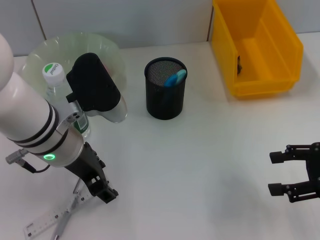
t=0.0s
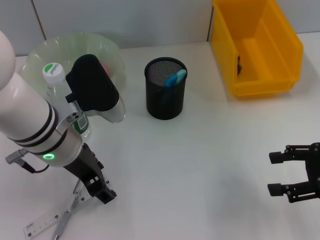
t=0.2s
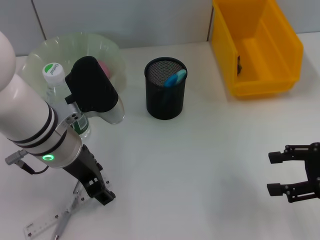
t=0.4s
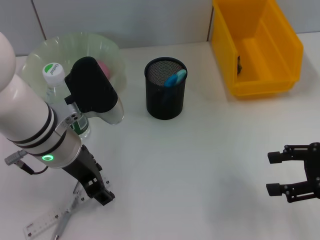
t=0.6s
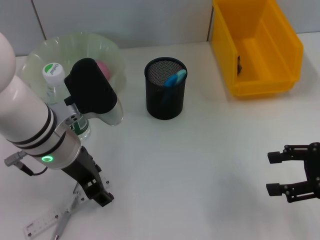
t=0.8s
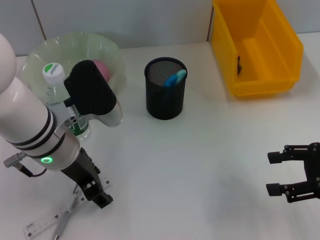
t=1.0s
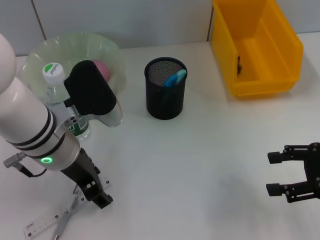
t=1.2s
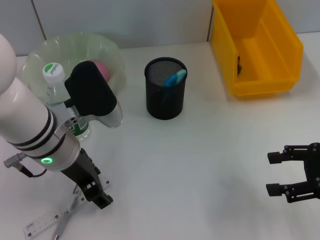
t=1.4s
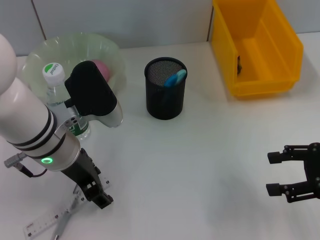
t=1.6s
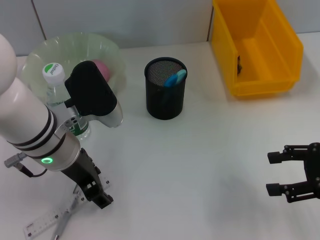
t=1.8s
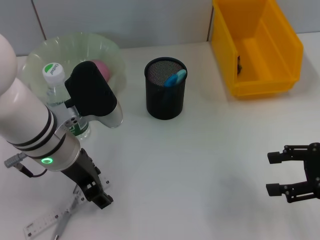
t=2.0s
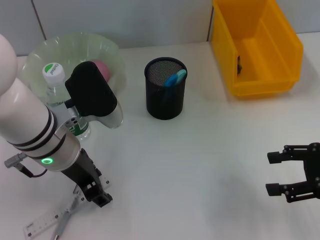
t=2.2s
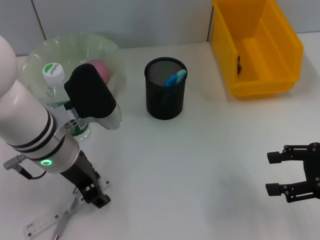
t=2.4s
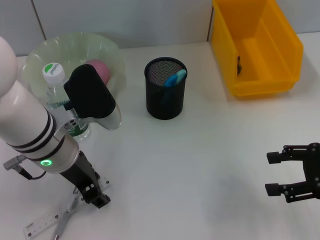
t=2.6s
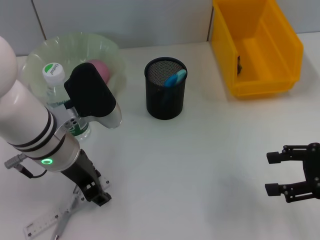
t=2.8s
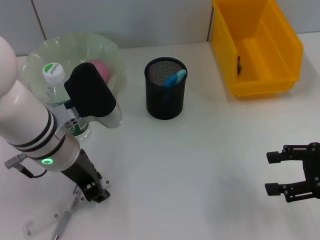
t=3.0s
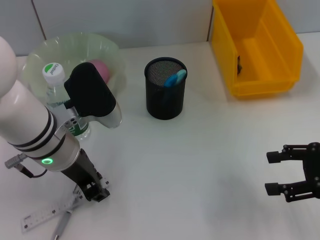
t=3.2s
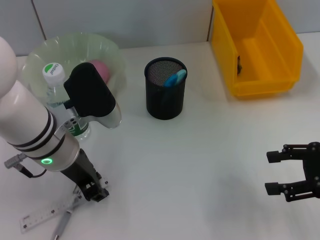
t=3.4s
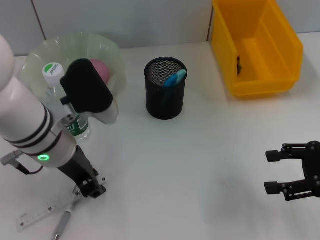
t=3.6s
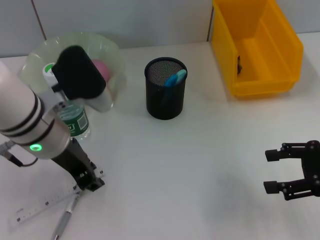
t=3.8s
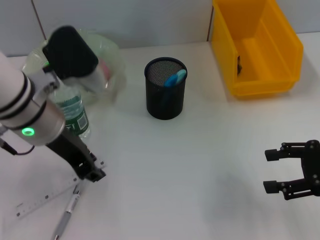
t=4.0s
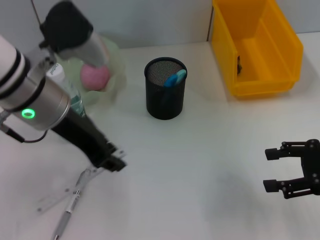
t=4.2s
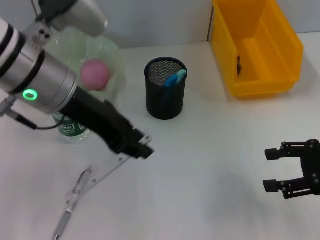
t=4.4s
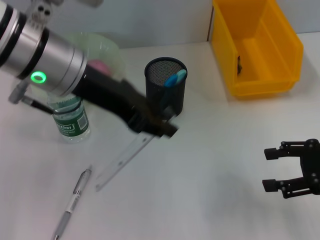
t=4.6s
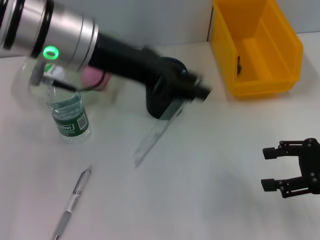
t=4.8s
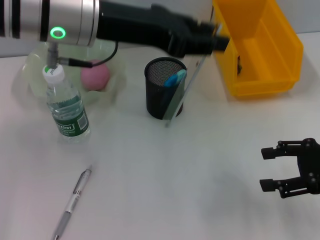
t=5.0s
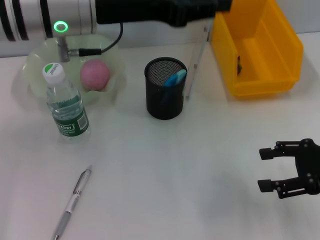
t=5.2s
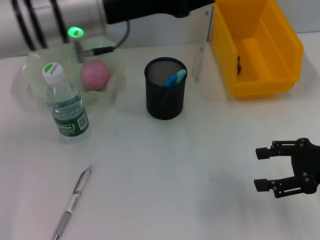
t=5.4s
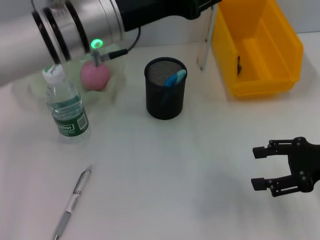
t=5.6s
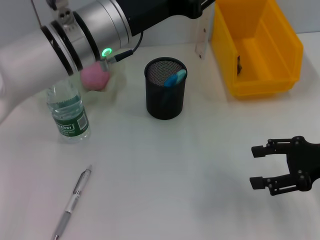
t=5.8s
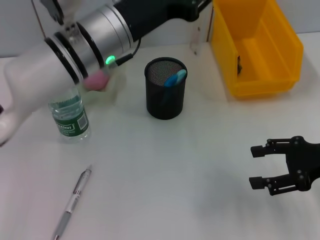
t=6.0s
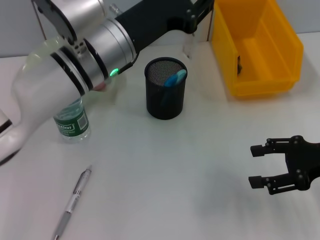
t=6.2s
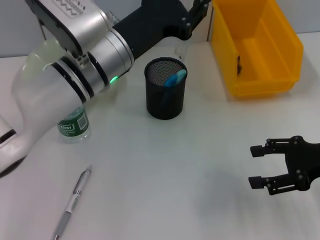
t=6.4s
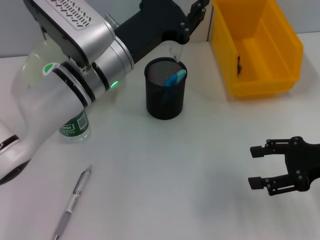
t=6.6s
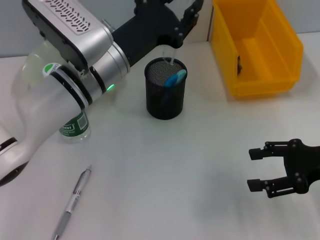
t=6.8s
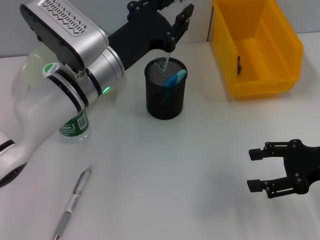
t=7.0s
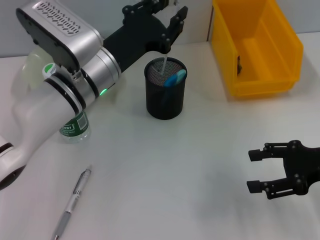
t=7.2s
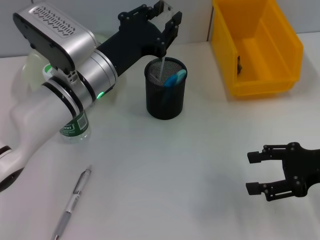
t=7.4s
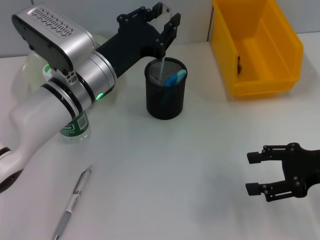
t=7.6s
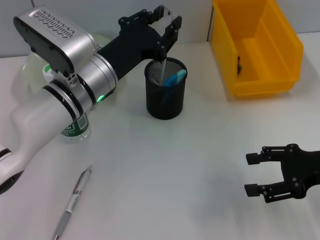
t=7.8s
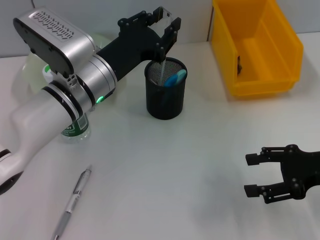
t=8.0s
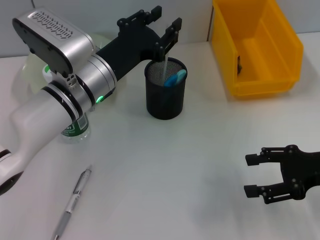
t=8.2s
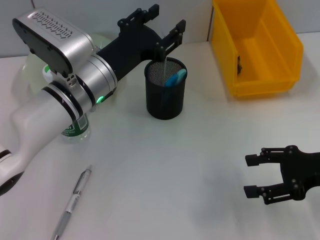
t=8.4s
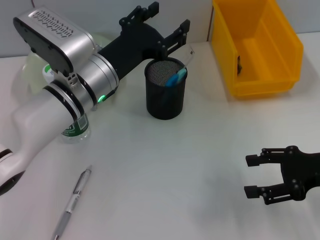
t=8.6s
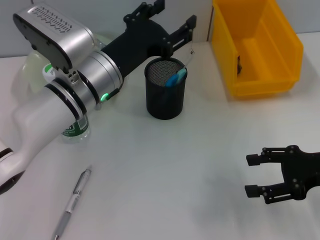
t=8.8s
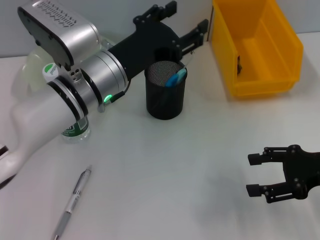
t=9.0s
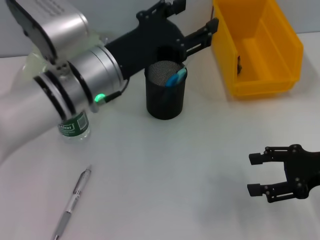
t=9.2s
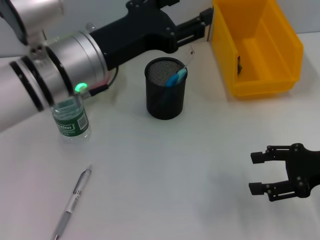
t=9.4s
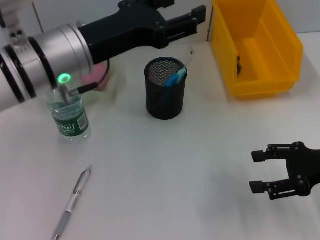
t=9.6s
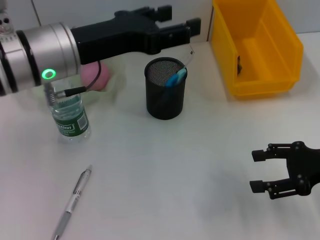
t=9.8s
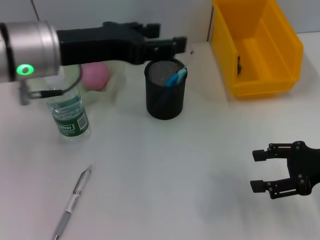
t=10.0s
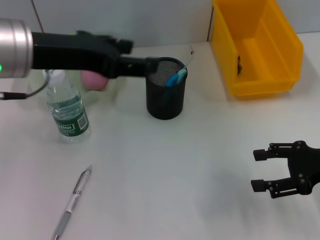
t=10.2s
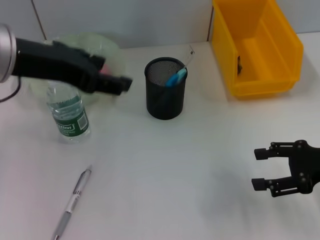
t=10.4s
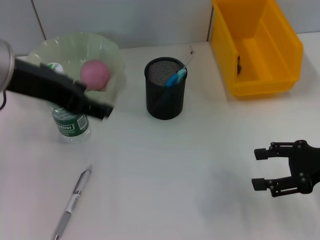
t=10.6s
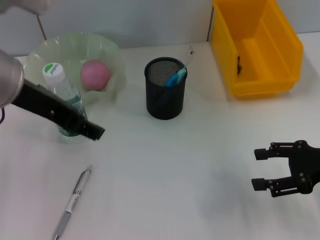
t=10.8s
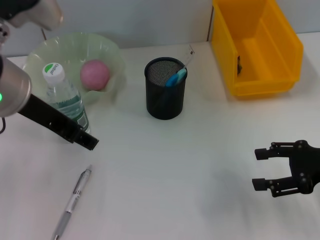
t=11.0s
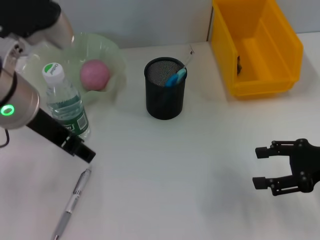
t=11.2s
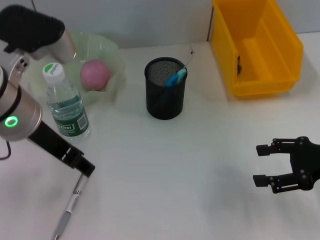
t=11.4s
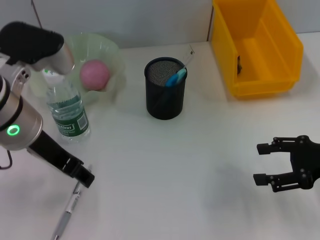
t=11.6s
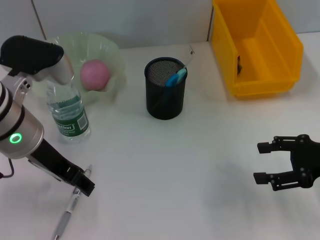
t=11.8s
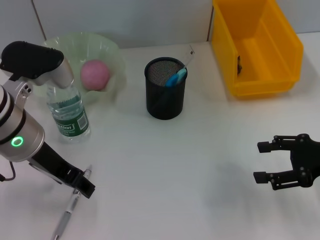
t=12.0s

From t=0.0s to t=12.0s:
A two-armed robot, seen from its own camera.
Step, from t=0.0s to t=3.4s: Grab the ruler with the left hand.
Step, from t=3.6s to t=8.6s: Place the ruler into the pen holder with the left hand.
From t=0.0s to t=1.6s: Both grippers stay put.
From t=1.6s to t=3.0s: Neither gripper changes place.
From t=3.0s to t=4.4s: The left gripper shifts about 10 cm upward.
From t=4.4s to t=6.0s: The left gripper travels to the right by roughly 5 cm.
From t=6.0s to t=7.6s: The left gripper shifts roughly 5 cm downward.
From t=7.6s to t=9.0s: The left gripper opens.
From t=9.0s to t=10.4s: The left gripper goes about 15 cm upward and to the left.
From t=10.4s to t=12.0s: The left gripper goes roughly 10 cm downward.

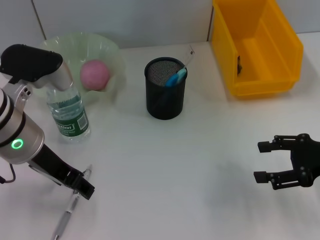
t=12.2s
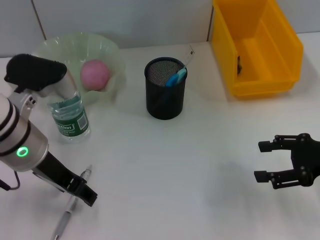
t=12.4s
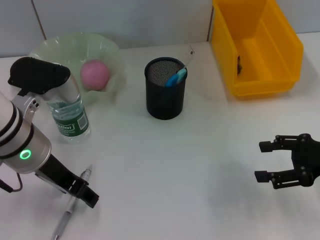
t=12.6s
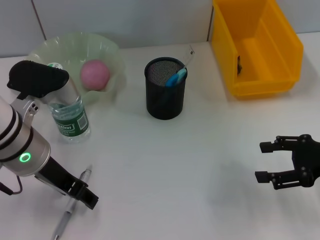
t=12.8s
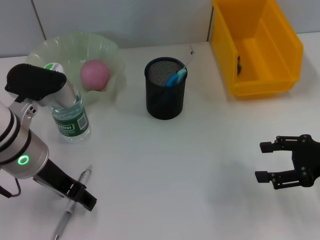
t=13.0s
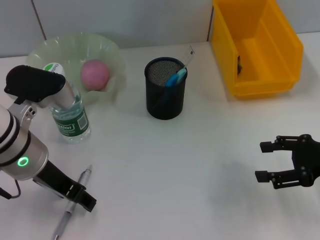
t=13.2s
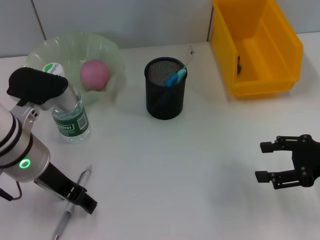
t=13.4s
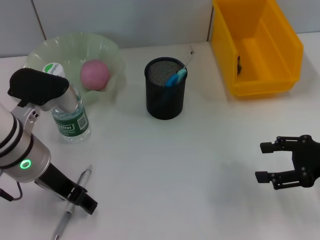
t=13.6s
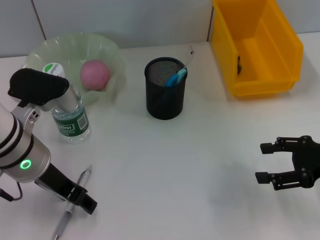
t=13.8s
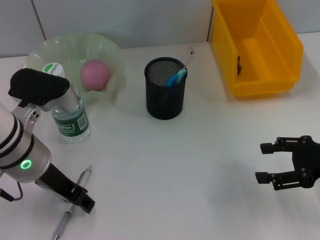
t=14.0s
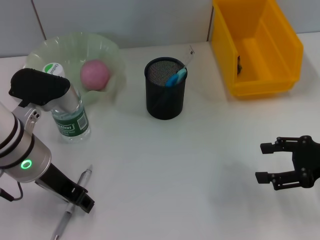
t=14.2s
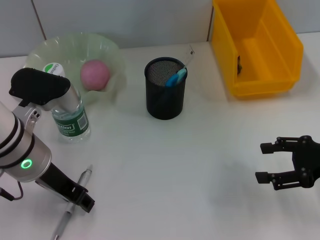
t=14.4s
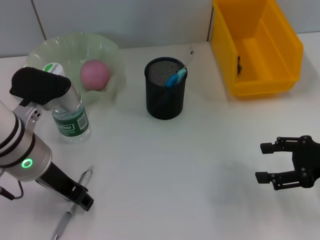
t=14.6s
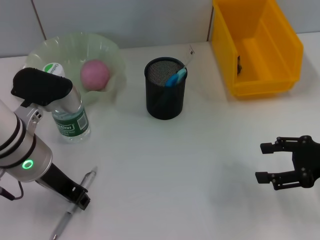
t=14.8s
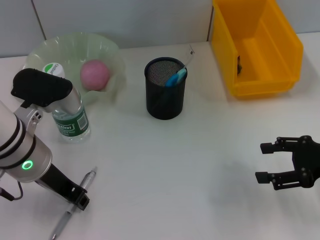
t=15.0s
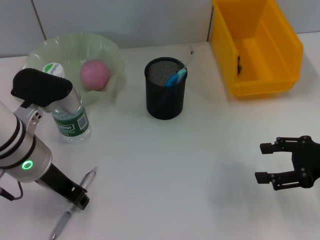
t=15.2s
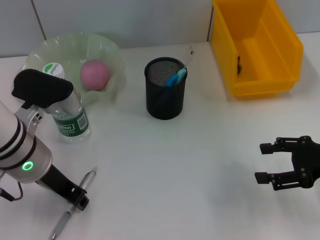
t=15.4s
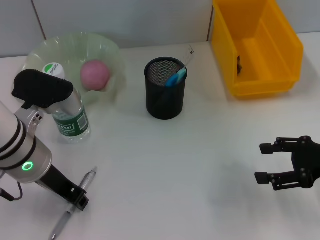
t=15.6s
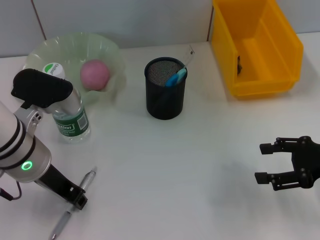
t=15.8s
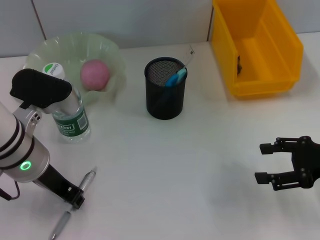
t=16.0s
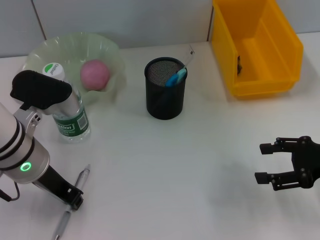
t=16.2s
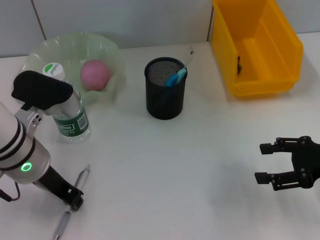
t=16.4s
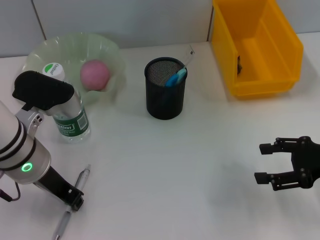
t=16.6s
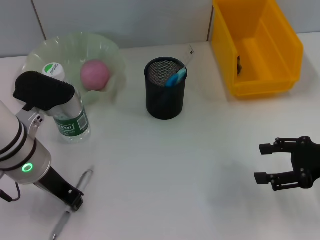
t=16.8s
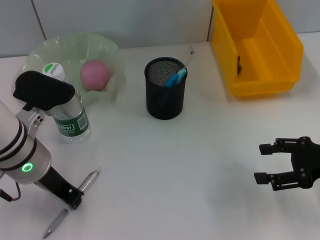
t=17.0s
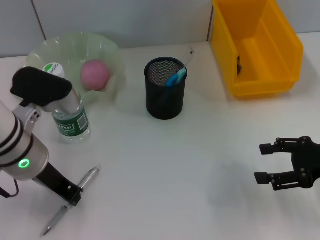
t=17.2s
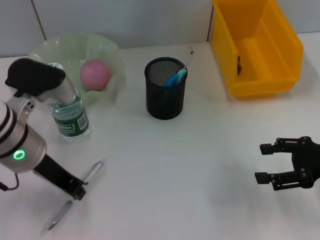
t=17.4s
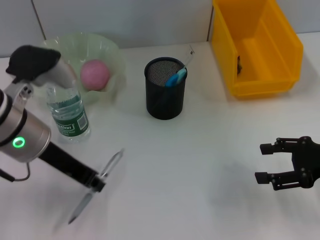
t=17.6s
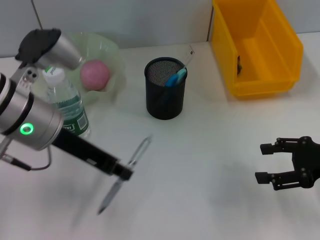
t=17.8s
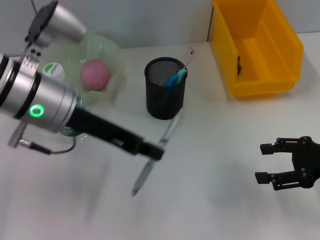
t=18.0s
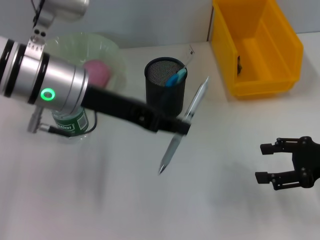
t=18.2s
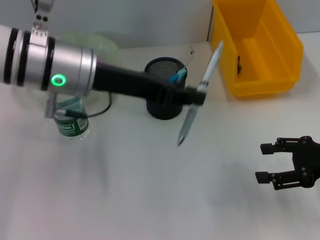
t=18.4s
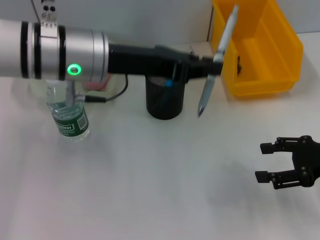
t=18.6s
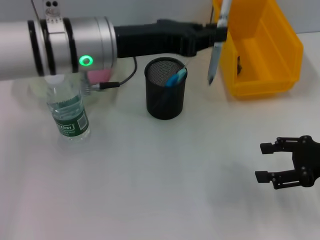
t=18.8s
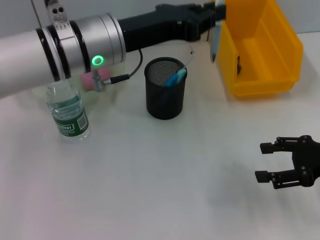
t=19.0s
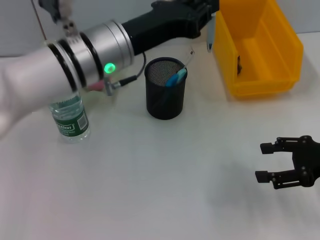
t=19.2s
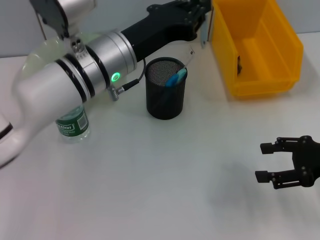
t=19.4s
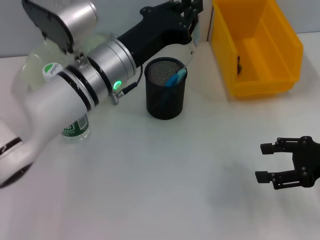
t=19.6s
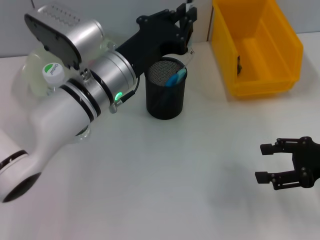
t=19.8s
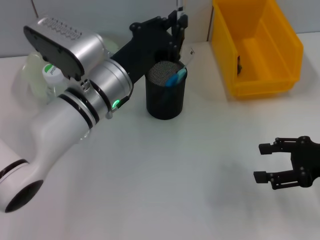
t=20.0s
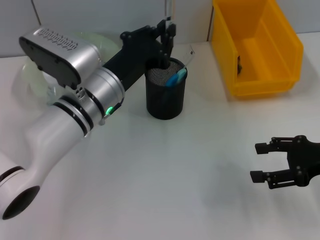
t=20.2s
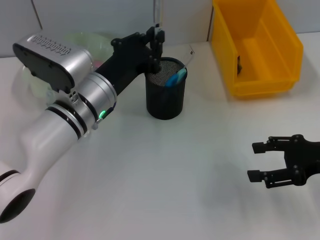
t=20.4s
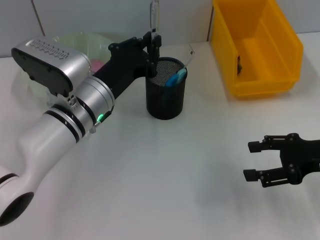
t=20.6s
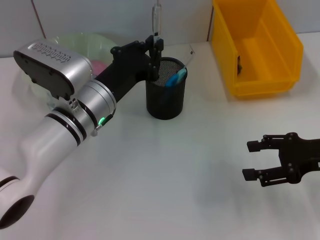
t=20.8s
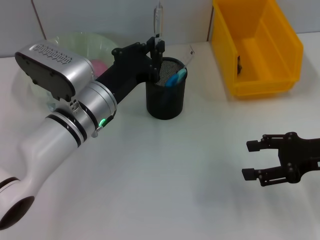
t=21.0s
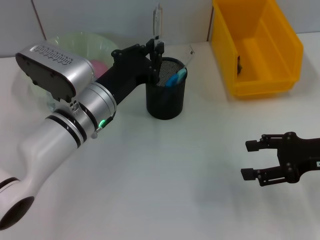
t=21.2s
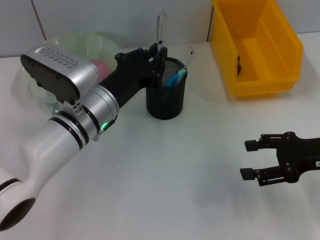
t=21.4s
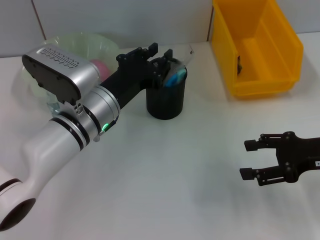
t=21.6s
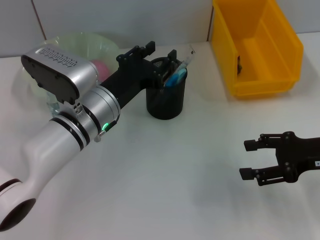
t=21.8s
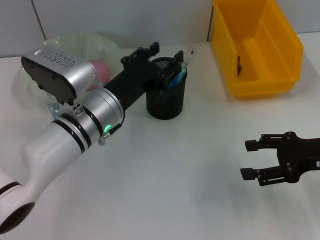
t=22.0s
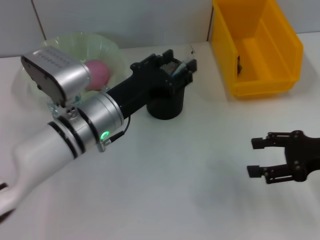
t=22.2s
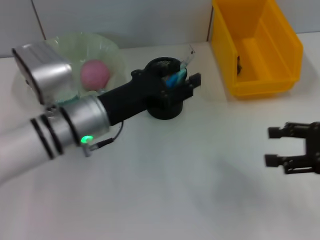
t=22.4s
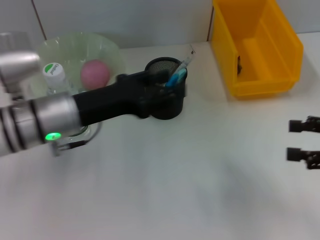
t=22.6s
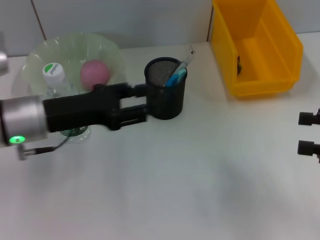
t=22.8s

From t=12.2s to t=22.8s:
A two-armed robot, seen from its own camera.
Step, from t=12.2s to t=16.8s: Grab the gray spring-action pen with the left hand.
Step, from t=17.0s to t=22.0s: Place the gray spring-action pen into the pen holder with the left hand.
From t=12.2s to t=13.8s: The grippers move only a little.
From t=13.8s to t=15.2s: The left gripper closes its fingers.
From t=15.2s to t=16.8s: Both grippers stay put.
From t=16.8s to t=18.2s: The left gripper is displaced upward by some 10 cm.
From t=18.2s to t=19.8s: The left gripper heads downward and to the right, covering some 10 cm.
From t=19.8s to t=21.2s: The left gripper moves approximately 5 cm.
From t=21.2s to t=22.8s: The left gripper goes roughly 10 cm to the left, and opens its fingers. Meanwhile the right gripper moves to the right, some 5 cm.
